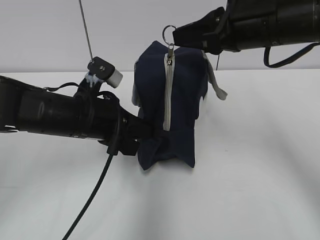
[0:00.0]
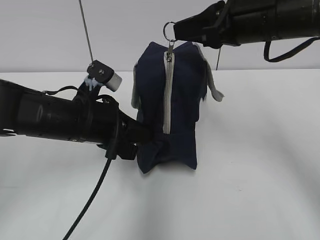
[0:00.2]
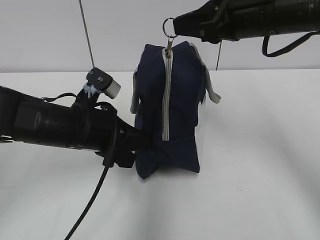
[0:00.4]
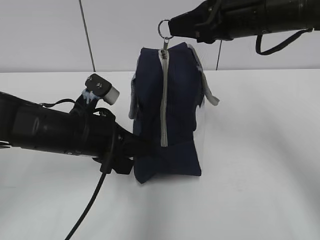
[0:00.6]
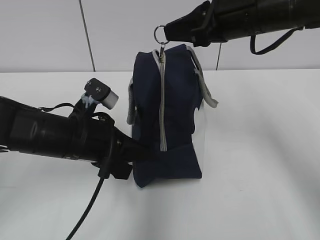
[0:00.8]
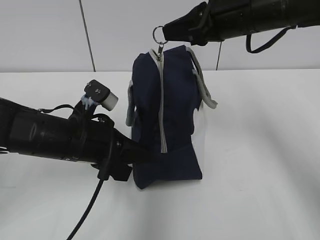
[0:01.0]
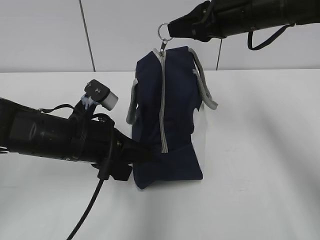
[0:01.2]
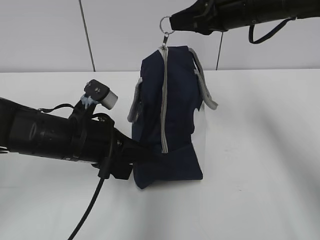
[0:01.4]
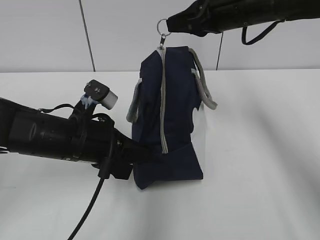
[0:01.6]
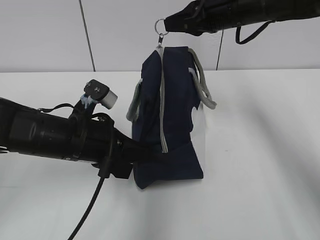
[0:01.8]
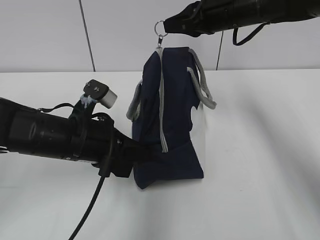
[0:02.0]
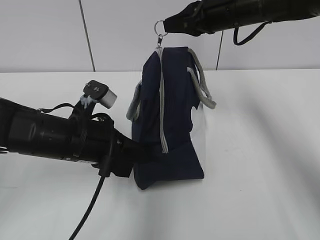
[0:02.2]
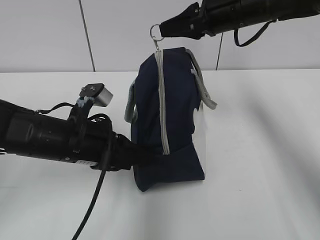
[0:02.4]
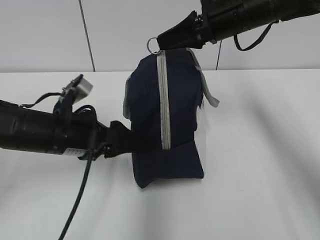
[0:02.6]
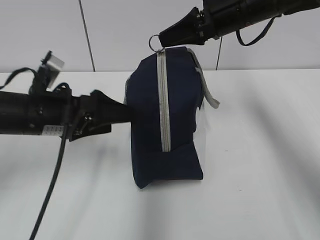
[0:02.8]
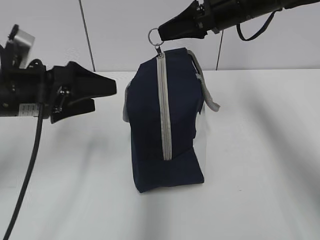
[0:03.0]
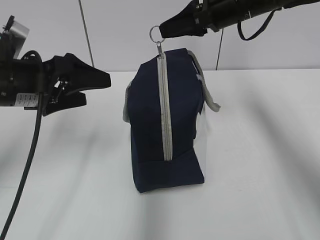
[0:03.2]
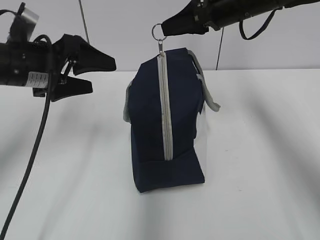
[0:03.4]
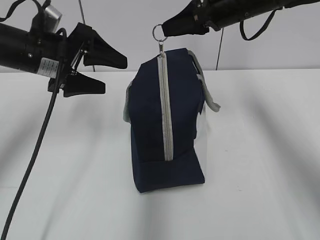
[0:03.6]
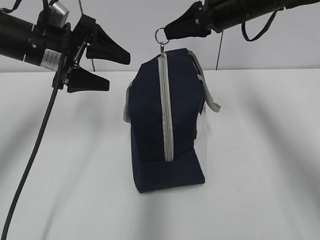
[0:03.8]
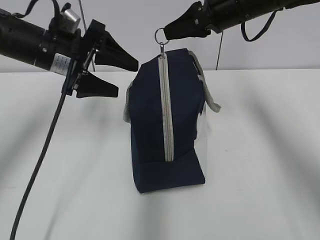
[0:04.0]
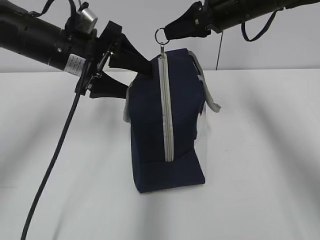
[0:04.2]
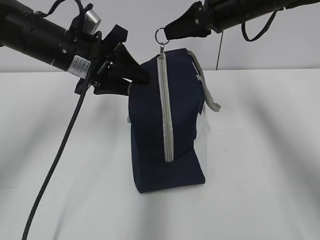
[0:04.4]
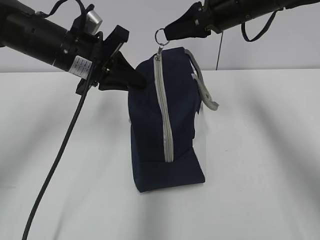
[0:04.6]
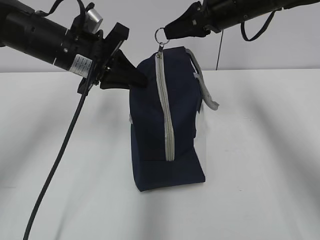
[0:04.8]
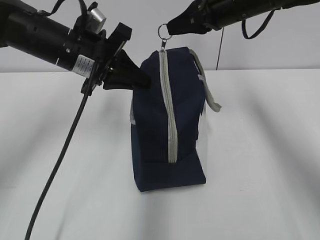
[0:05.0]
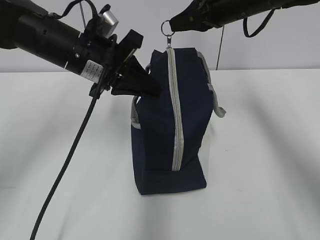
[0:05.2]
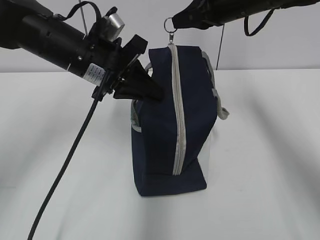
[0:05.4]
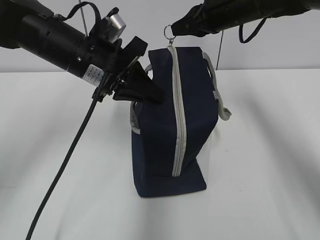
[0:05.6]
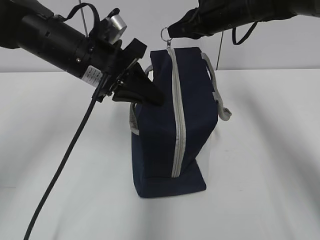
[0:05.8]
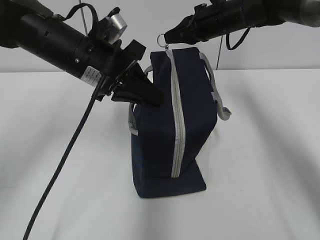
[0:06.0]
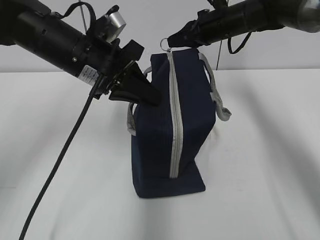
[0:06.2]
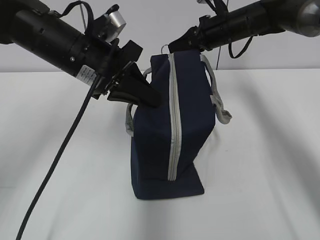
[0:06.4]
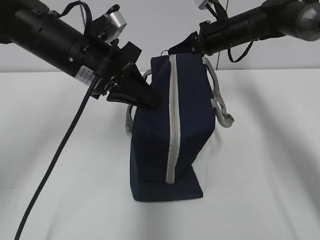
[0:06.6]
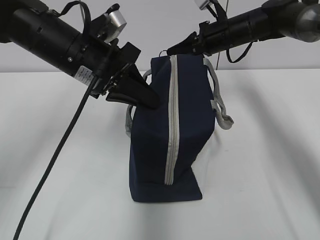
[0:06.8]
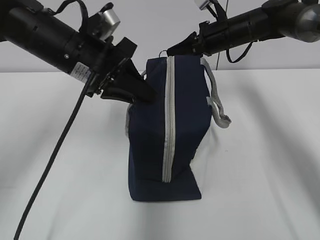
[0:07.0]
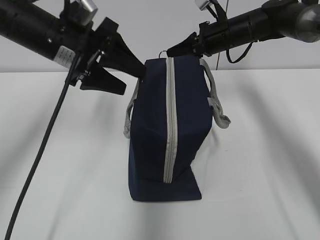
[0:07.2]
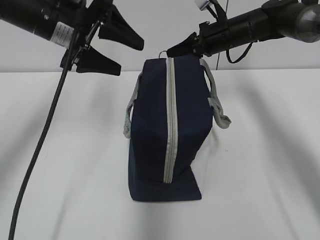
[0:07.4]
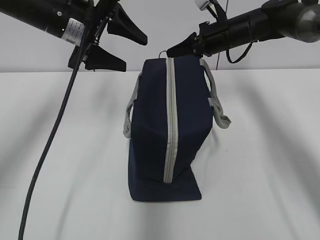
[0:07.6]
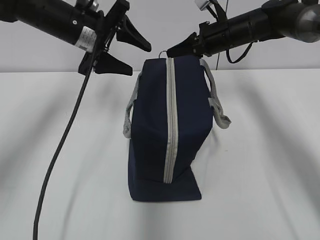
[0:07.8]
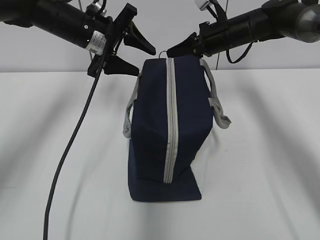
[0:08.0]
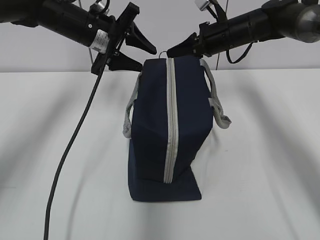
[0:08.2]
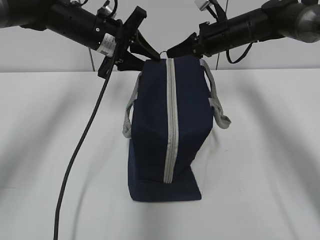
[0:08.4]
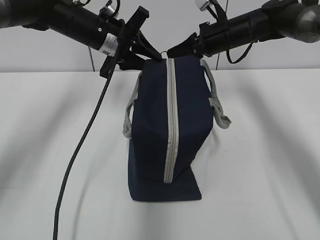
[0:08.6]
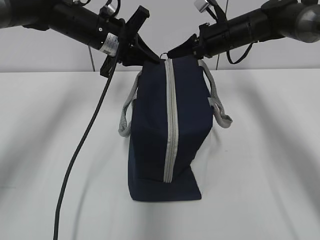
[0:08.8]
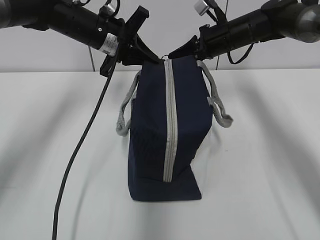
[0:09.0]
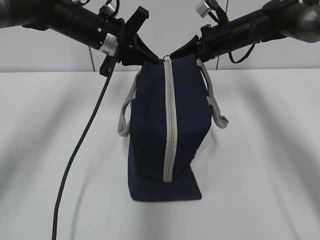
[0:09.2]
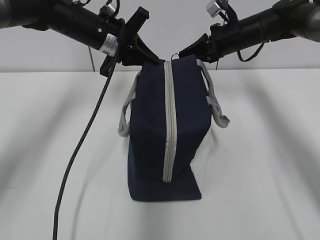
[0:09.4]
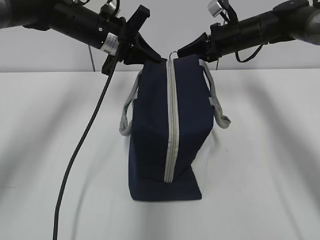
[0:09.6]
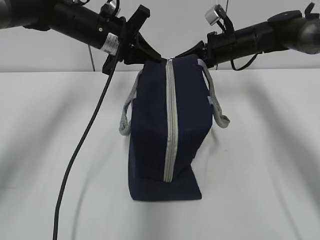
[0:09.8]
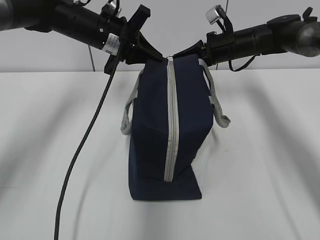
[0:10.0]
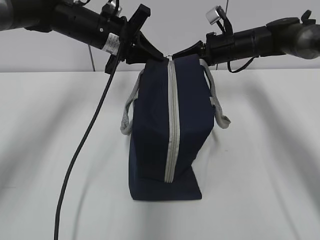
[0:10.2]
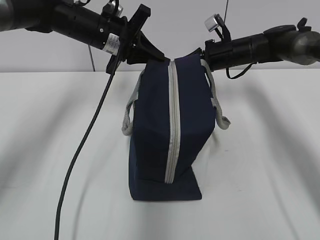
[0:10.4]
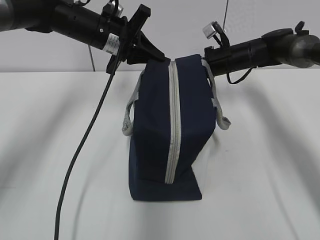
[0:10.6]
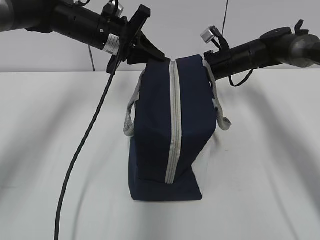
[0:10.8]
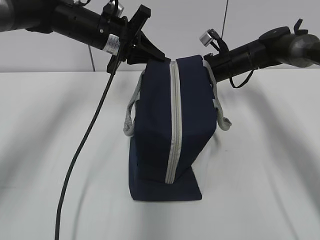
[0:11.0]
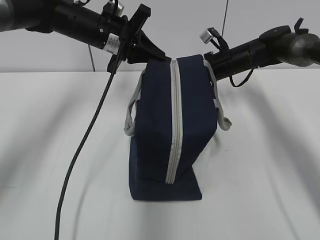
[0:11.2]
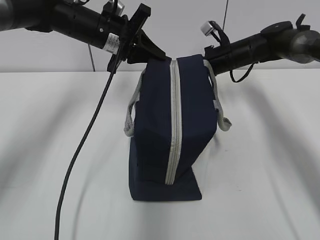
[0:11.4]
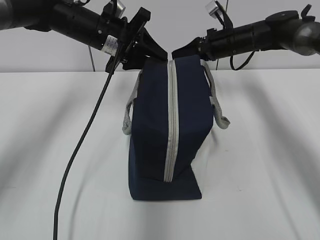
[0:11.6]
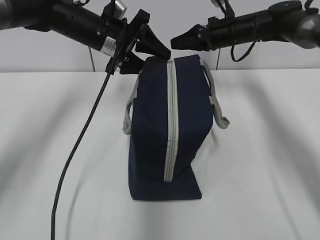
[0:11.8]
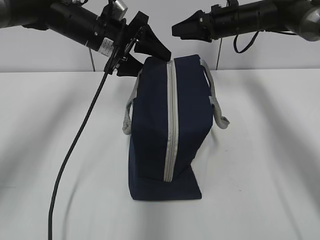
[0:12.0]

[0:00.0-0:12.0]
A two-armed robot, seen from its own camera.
0:00.0 to 0:01.6: The right gripper goes roughly 10 cm forward.
0:01.6 to 0:03.0: The left gripper shifts some 10 cm to the left and upward, and opens its fingers.
0:03.0 to 0:04.4: The left gripper shifts approximately 10 cm forward and to the right, and closes.
0:04.4 to 0:06.0: The left gripper closes up. Meanwhile the right gripper travels forward by roughly 10 cm.
0:06.0 to 0:07.6: The left gripper travels forward by some 5 cm, and opens.
0:07.6 to 0:09.0: The left gripper travels forward by some 5 cm, and closes.
0:09.0 to 0:10.4: The grippers stay close to where they were, moving slightly.
0:10.4 to 0:12.0: The left gripper opens up, while the right gripper moves upward, roughly 5 cm, and opens up.

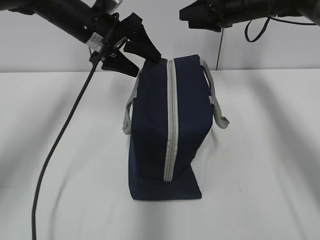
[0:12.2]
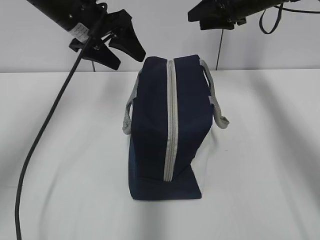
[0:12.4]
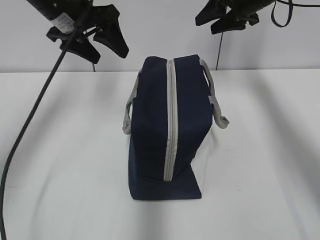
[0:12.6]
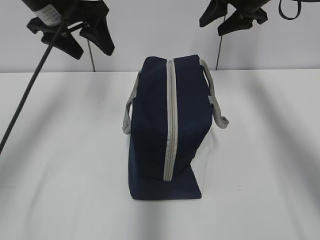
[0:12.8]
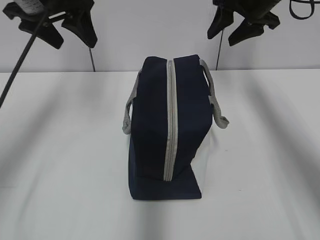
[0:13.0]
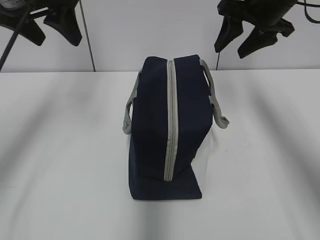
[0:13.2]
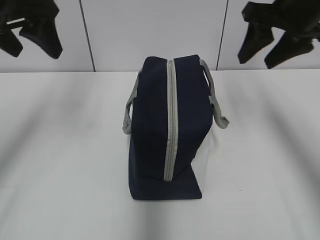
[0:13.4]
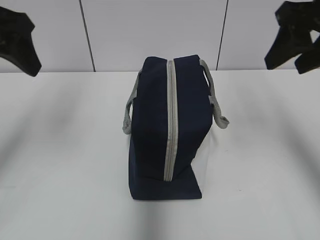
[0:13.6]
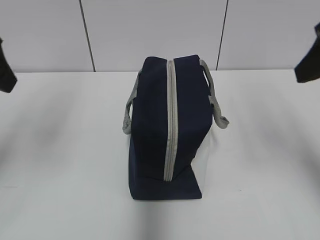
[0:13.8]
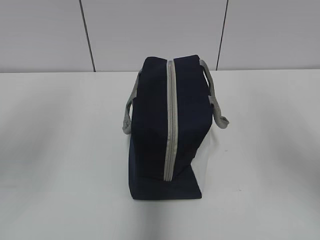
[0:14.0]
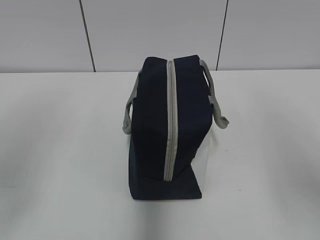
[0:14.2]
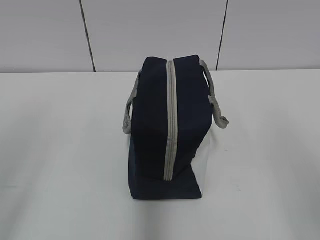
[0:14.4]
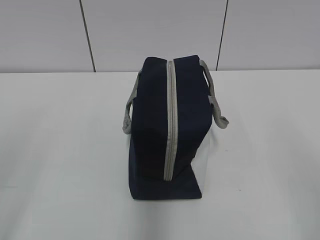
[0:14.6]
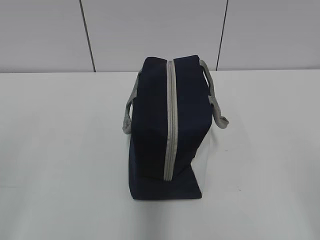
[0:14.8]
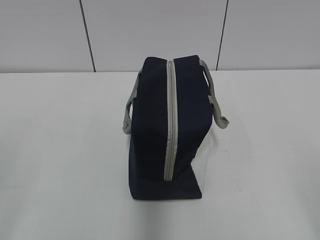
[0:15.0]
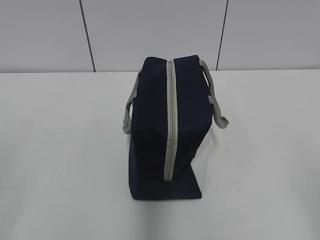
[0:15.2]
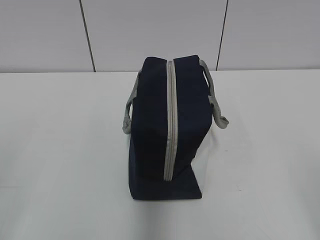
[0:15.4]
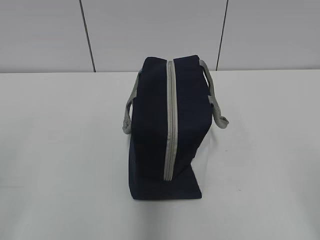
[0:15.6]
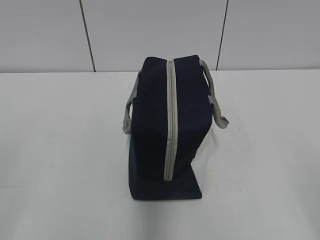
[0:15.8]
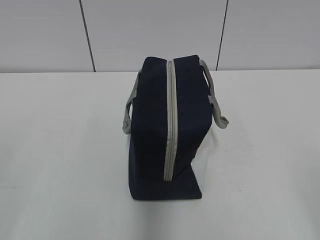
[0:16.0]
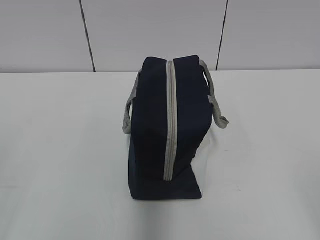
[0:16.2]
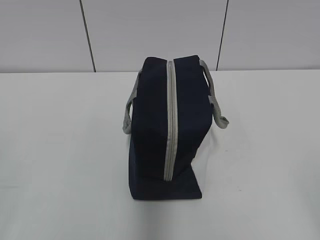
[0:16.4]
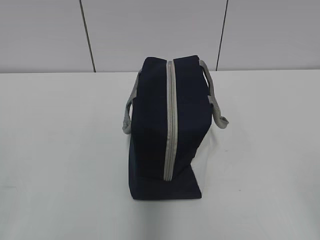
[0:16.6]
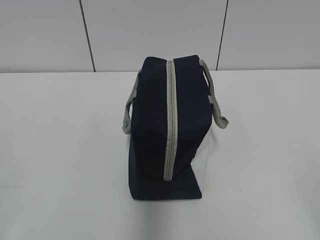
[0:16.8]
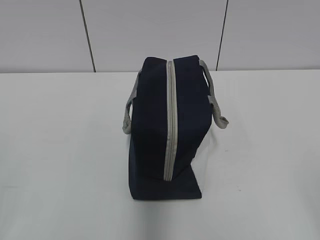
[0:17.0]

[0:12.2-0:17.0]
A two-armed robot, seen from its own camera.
0:12.2 to 0:13.8: The right gripper goes about 30 cm backward; the left gripper shifts about 25 cm backward, to the left and upward.
0:13.8 to 0:15.4: The right gripper travels backward by approximately 20 cm. The left gripper is displaced backward and downward by some 20 cm.
